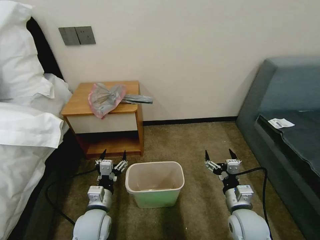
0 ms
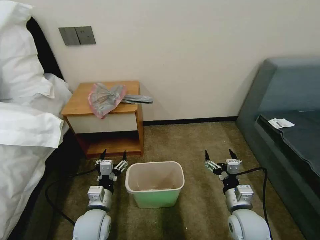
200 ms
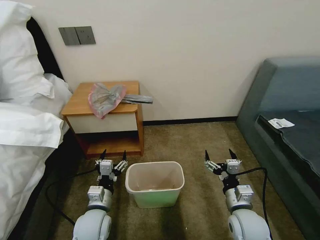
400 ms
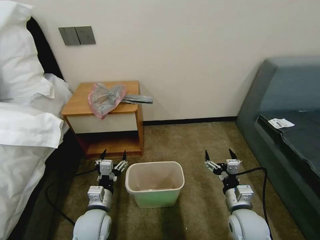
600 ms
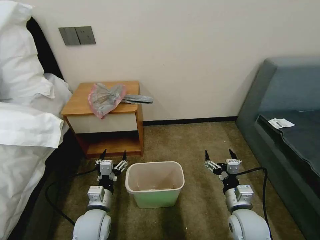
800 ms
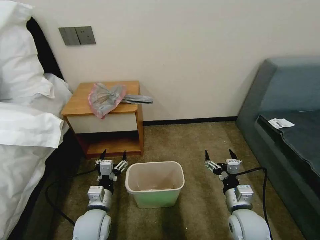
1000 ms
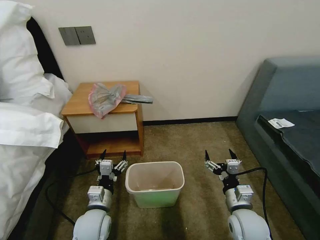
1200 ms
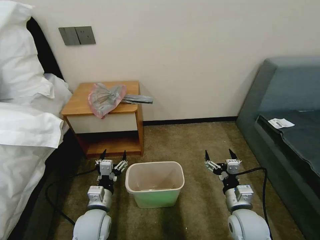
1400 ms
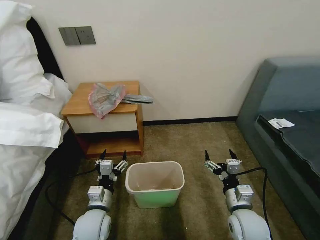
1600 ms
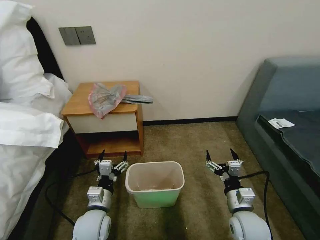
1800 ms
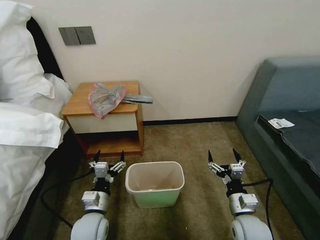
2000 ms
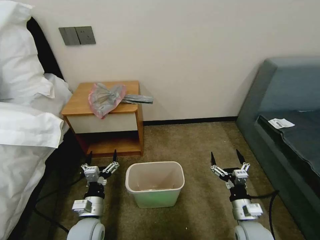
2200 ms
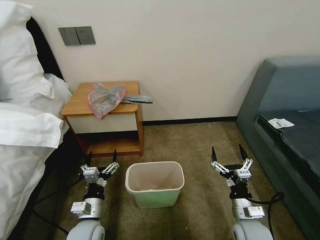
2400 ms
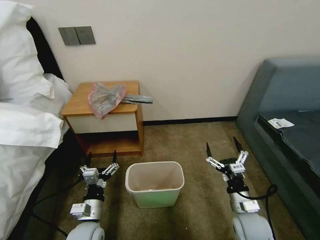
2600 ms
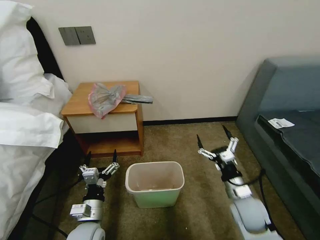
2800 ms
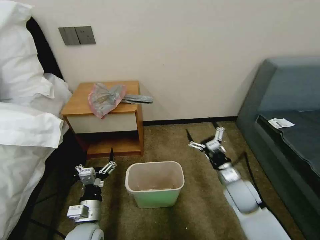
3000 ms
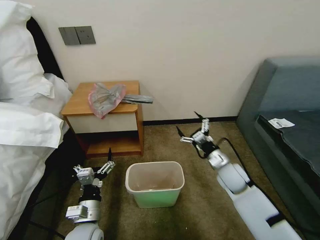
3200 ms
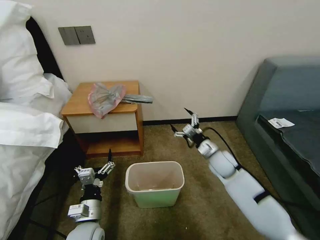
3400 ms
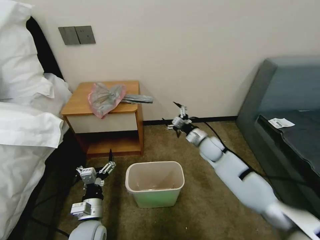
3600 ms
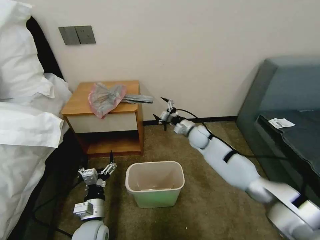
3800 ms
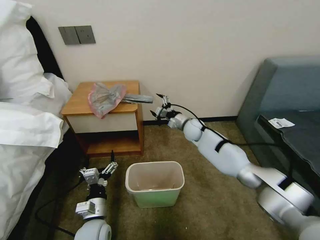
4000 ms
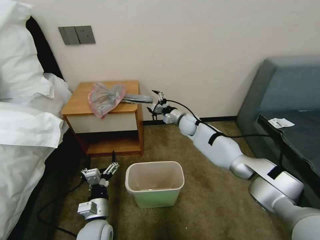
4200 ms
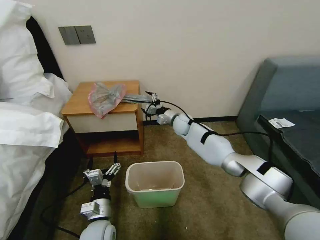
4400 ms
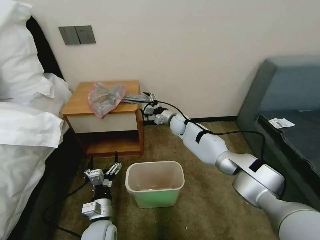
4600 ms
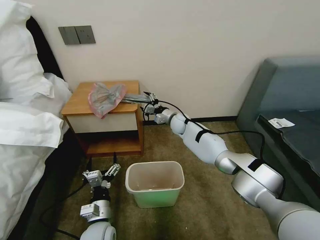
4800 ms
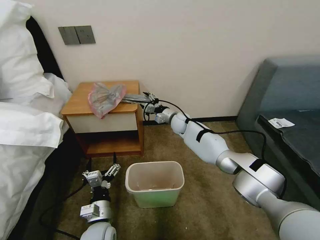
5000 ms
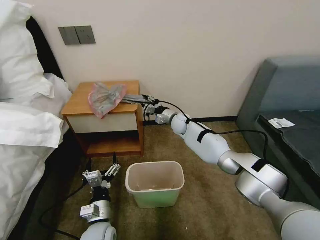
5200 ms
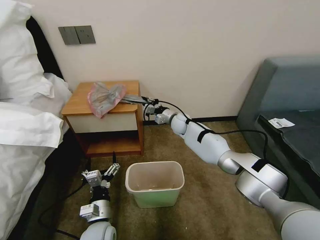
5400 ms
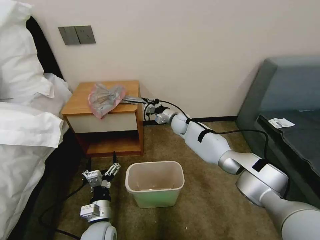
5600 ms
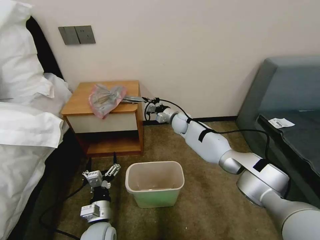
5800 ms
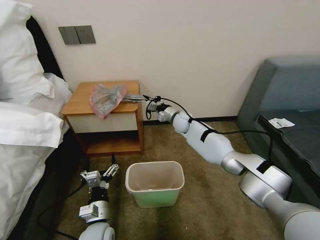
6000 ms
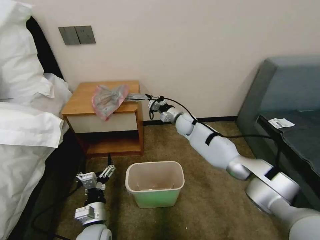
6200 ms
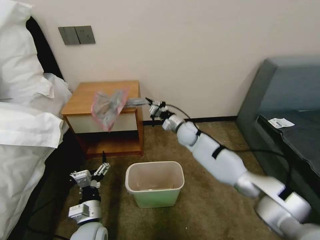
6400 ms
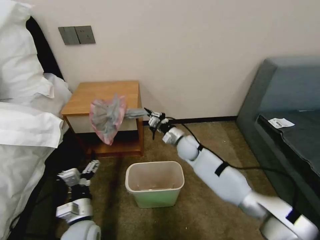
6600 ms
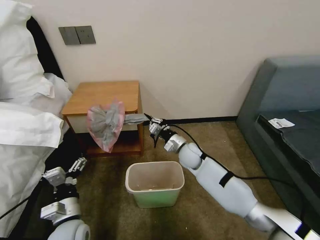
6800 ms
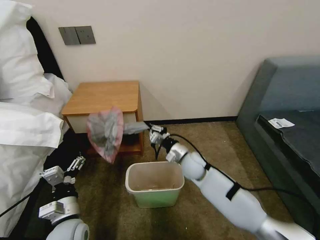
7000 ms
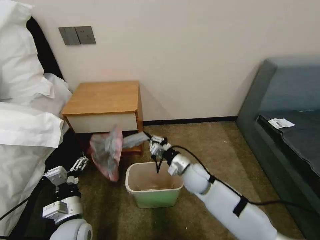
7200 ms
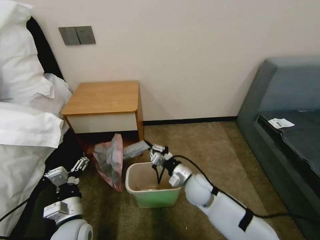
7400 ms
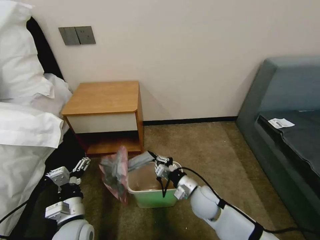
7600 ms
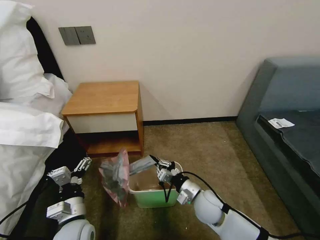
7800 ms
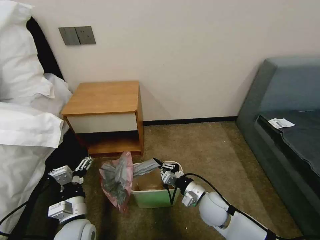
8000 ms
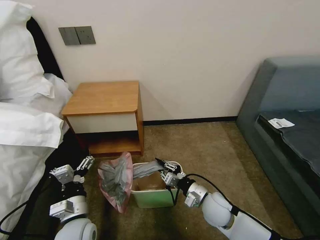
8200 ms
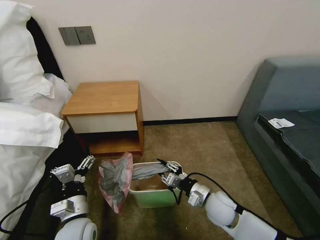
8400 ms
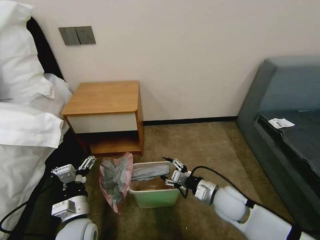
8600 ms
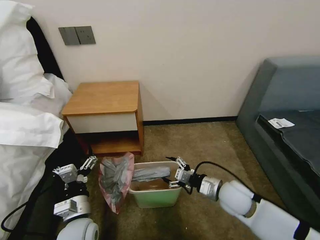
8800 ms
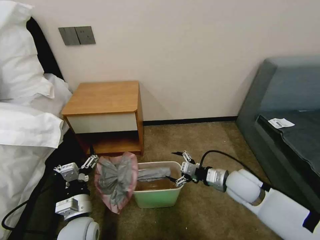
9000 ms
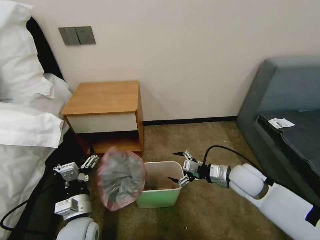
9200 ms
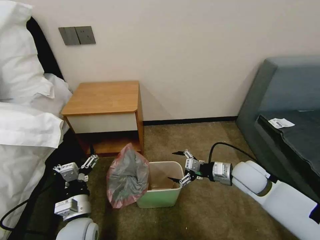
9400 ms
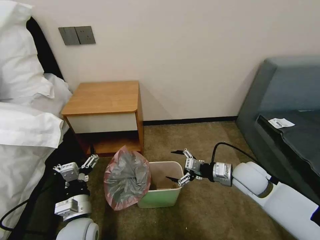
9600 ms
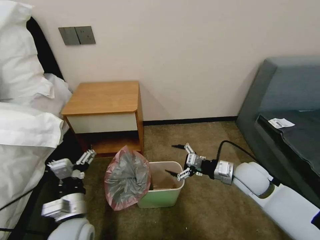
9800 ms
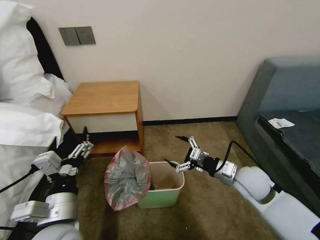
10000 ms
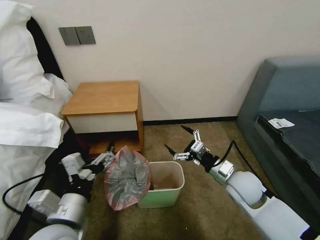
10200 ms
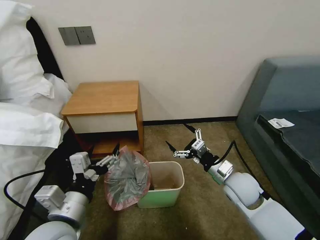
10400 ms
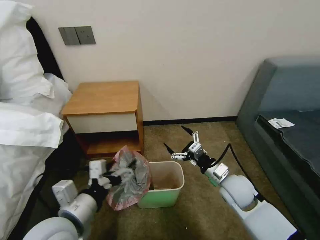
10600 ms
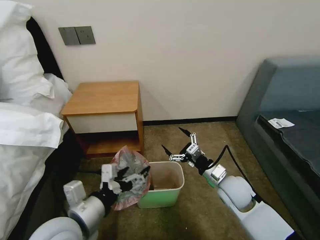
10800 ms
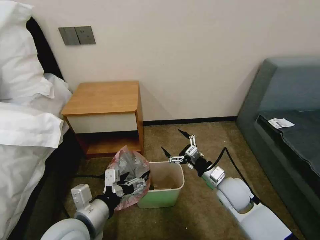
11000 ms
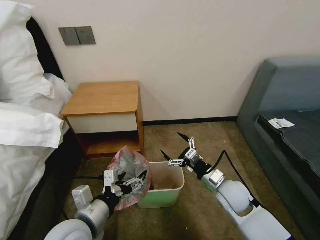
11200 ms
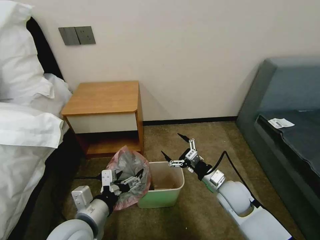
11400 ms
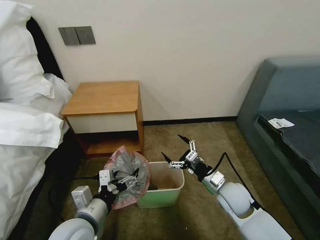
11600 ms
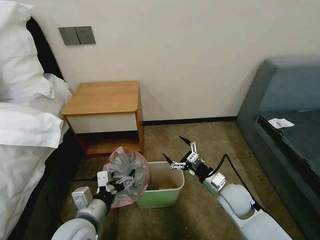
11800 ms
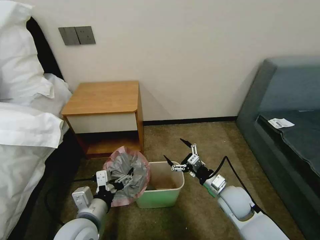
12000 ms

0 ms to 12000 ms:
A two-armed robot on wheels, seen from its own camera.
Task of the whole recording: Pick up the garbage bag from the table and place it over the trash can.
1600 ms to 3000 ms: The right gripper is displaced forward by some 10 cm.
3000 ms to 4400 ms: The right gripper is displaced forward and to the left by some 35 cm.
4400 ms to 6000 ms: The right gripper closes up.
6000 ms to 7600 ms: The right gripper travels backward by about 30 cm; the left gripper goes approximately 5 cm upward.
7600 ms to 9000 ms: The right gripper goes approximately 15 cm to the right and upward, and opens its fingers.
9000 ms to 10400 ms: The left gripper is displaced upward by some 15 cm.
10400 ms to 12000 ms: The two grippers go about 5 cm downward.

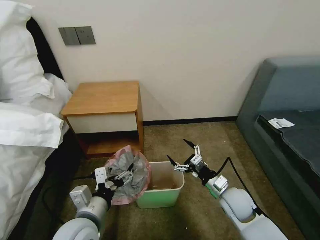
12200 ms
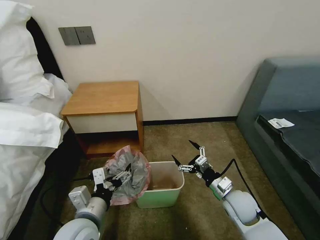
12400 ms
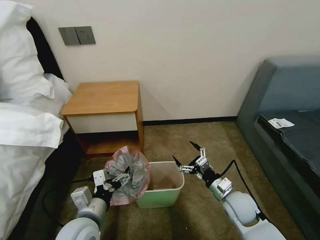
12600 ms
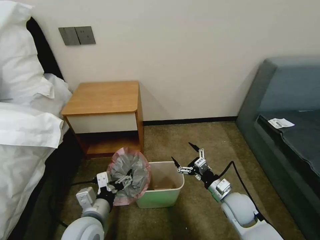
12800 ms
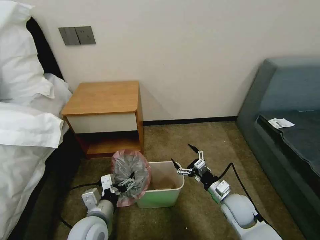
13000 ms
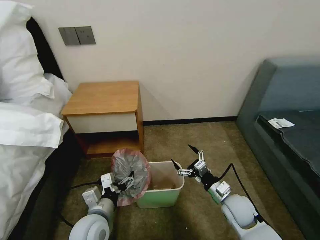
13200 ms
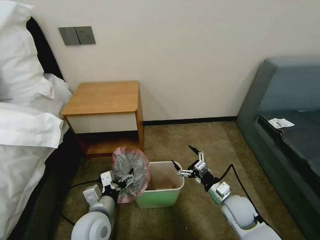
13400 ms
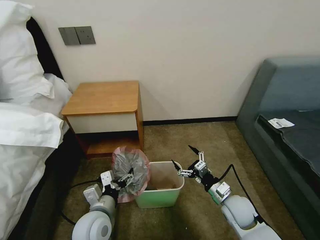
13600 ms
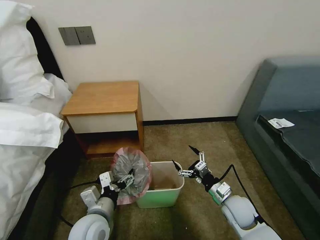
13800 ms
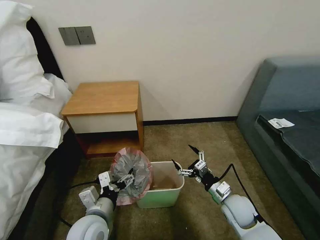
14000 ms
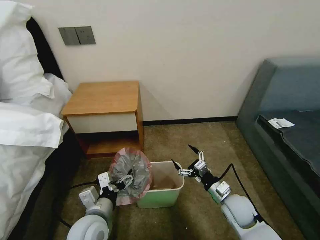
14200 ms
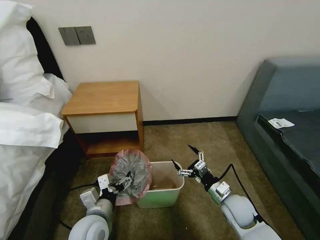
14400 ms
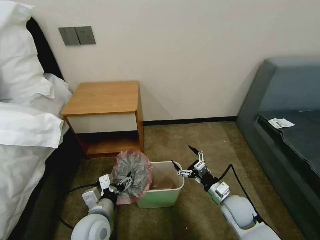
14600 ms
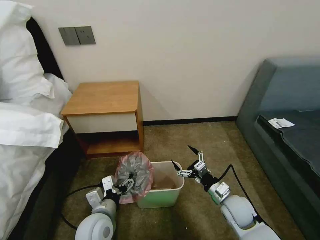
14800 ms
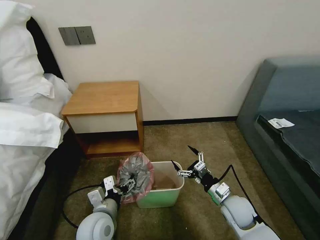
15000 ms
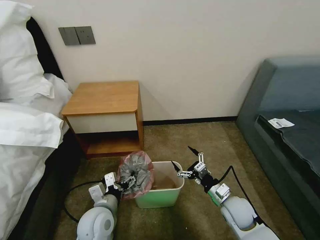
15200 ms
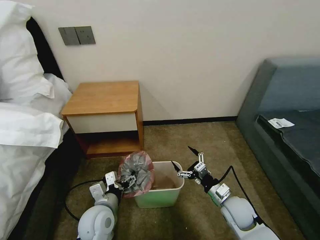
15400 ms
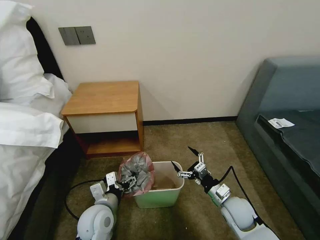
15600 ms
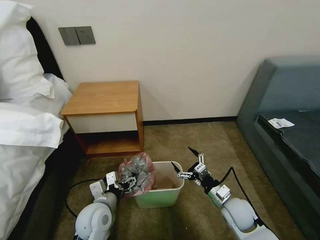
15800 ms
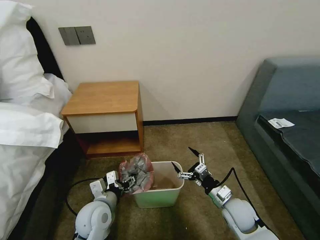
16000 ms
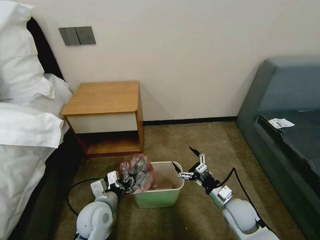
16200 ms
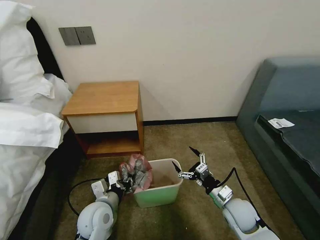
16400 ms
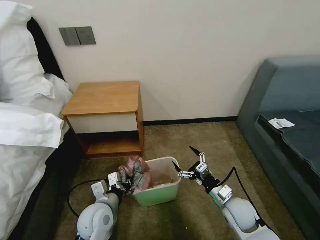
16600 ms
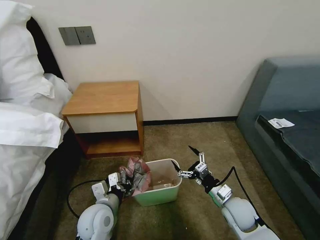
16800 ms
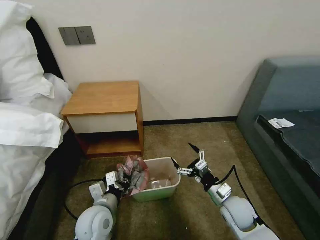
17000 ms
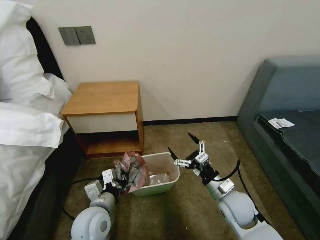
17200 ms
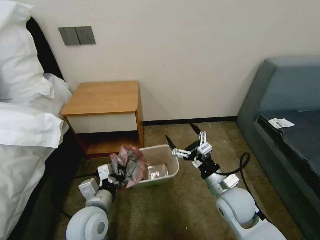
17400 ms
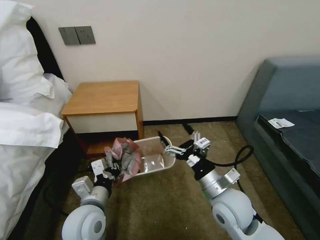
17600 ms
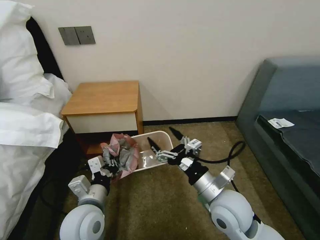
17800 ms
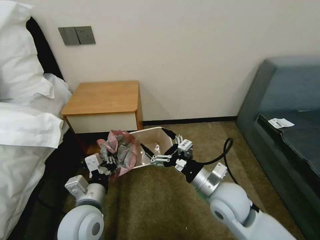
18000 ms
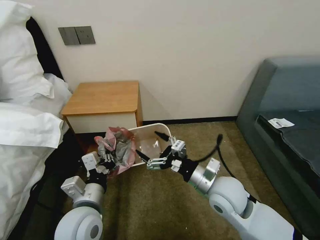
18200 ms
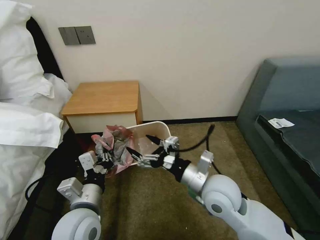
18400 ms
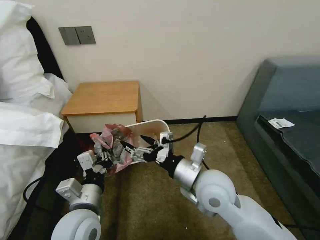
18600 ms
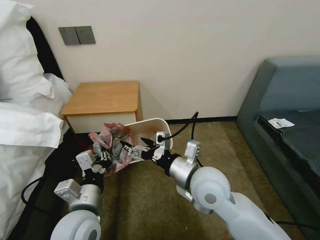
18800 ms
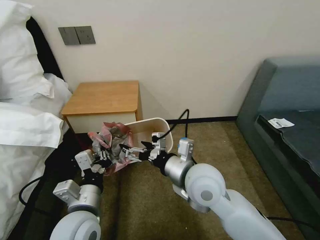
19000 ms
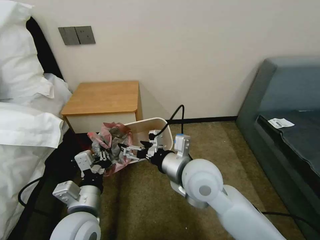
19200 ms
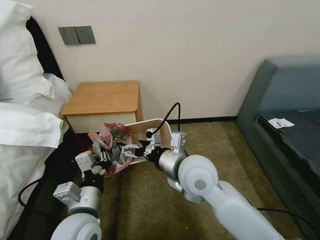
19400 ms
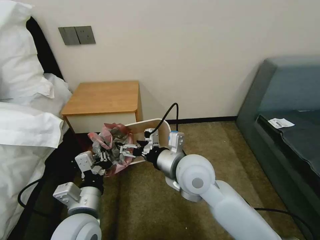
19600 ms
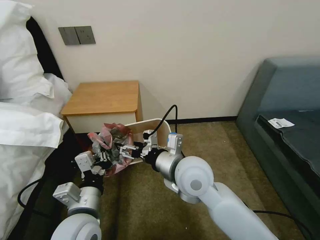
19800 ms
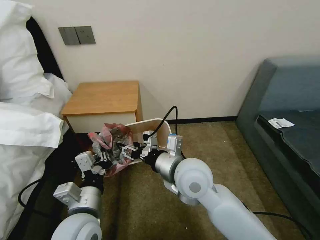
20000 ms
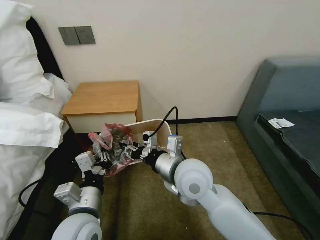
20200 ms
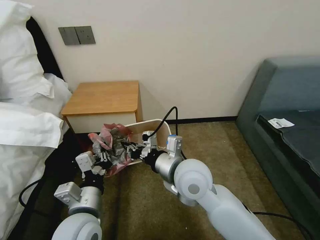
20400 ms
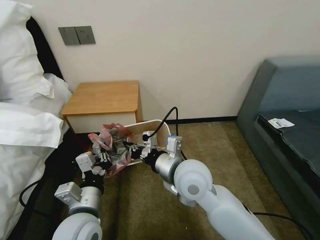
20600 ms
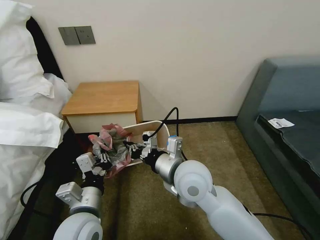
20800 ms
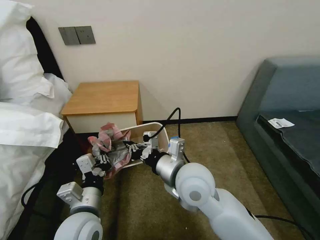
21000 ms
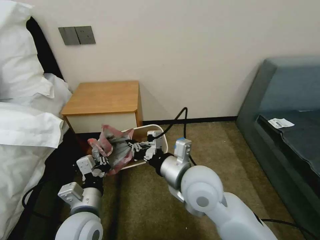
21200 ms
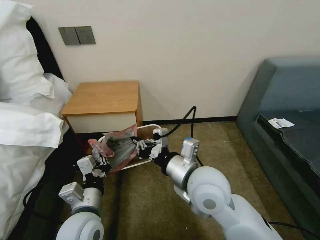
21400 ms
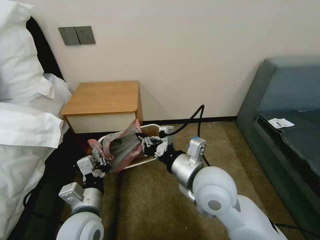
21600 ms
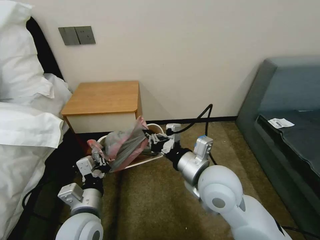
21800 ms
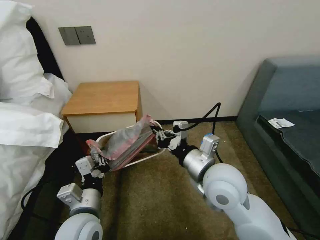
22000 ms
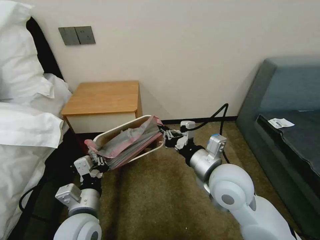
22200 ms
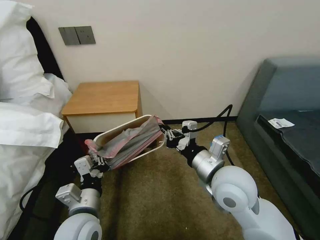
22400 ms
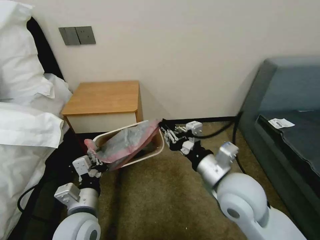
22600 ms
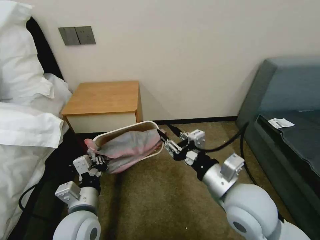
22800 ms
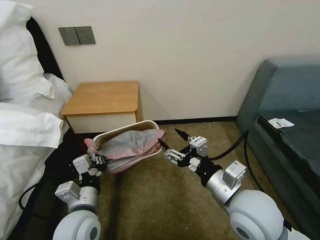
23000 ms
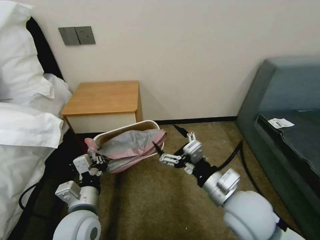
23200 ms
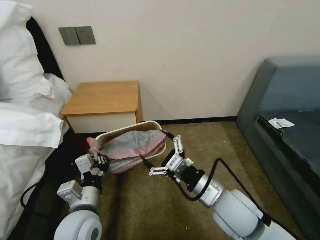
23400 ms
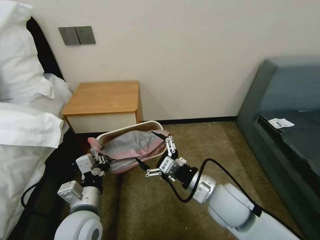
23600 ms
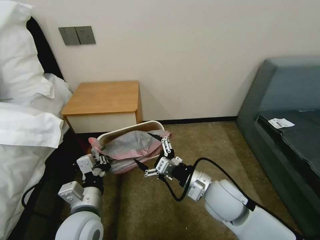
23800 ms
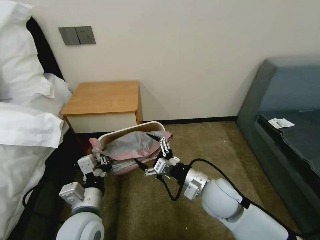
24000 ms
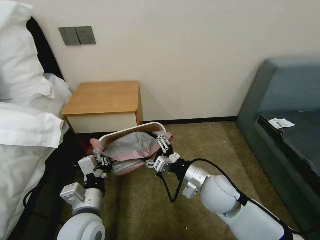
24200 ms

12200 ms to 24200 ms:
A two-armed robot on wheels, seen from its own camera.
Task of the whole recording: Pick up the garbage bag from the table and place it over the trash can.
12200 ms to 13800 ms: The left gripper ends up approximately 5 cm from where it was.
13800 ms to 15200 ms: The grippers make only small movements.
15200 ms to 16600 ms: The left gripper closes.
16600 ms to 18200 ms: The right gripper is displaced upward and to the left by about 15 cm; the left gripper shifts roughly 10 cm upward.
18200 ms to 19800 ms: The right gripper moves to the left and upward, some 10 cm.
19800 ms to 21200 ms: The right gripper closes its fingers.
21200 ms to 22600 ms: The right gripper heads to the right, covering approximately 10 cm.
22600 ms to 24200 ms: The right gripper is displaced downward by about 10 cm, and opens.
